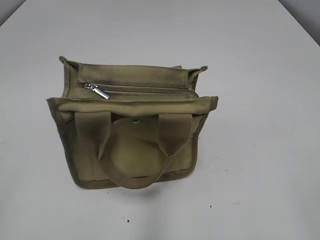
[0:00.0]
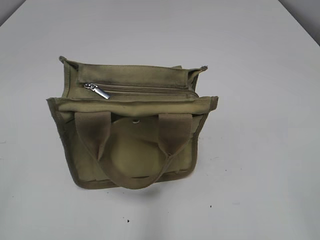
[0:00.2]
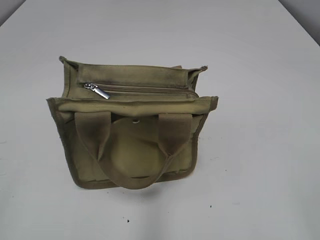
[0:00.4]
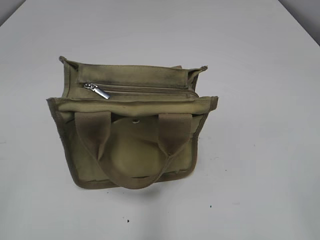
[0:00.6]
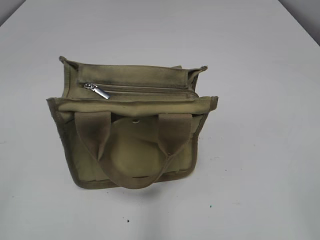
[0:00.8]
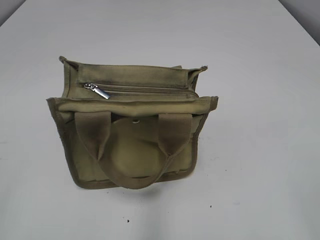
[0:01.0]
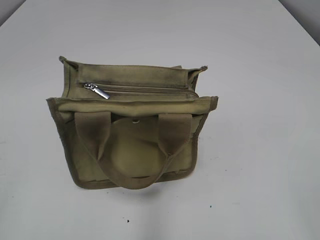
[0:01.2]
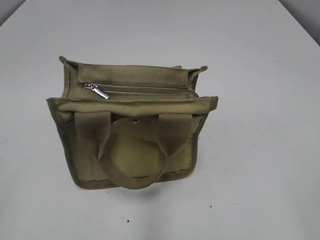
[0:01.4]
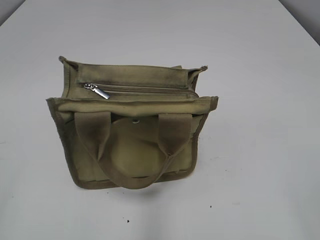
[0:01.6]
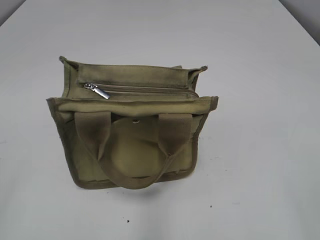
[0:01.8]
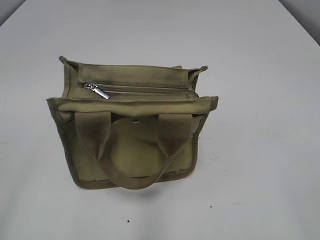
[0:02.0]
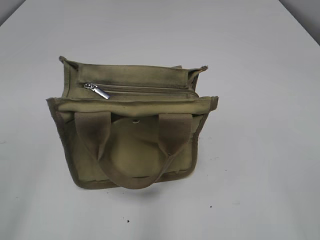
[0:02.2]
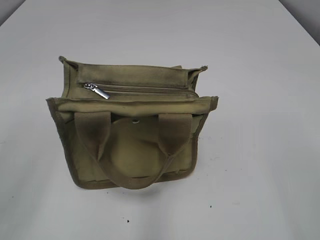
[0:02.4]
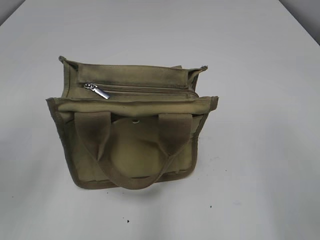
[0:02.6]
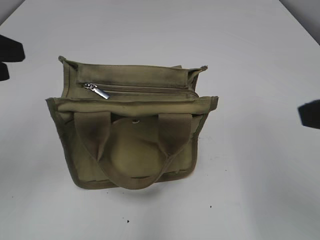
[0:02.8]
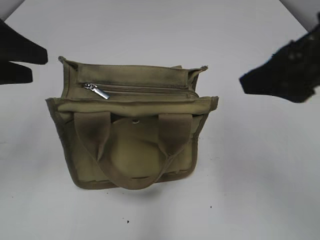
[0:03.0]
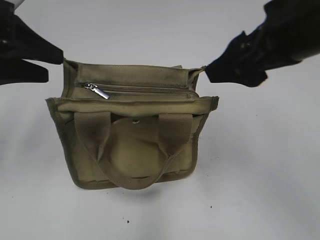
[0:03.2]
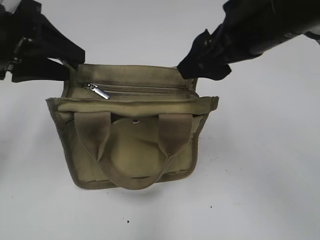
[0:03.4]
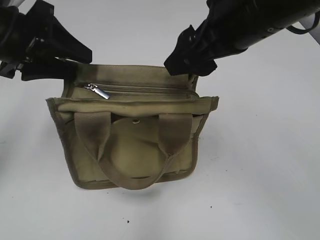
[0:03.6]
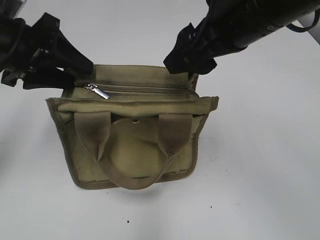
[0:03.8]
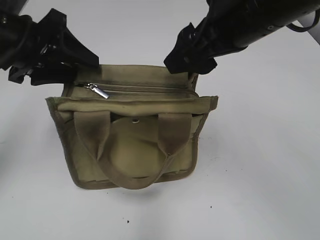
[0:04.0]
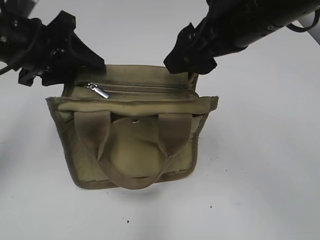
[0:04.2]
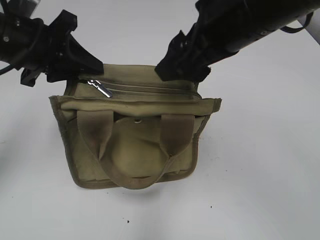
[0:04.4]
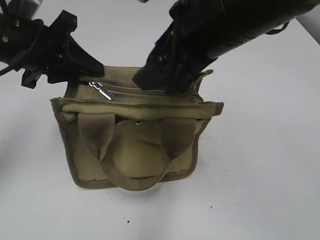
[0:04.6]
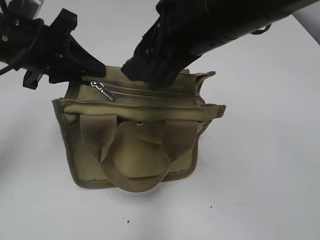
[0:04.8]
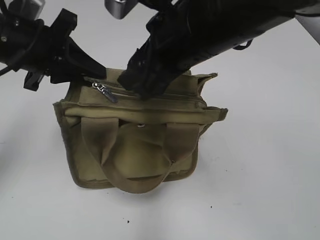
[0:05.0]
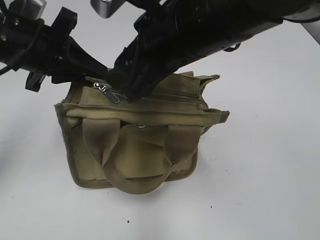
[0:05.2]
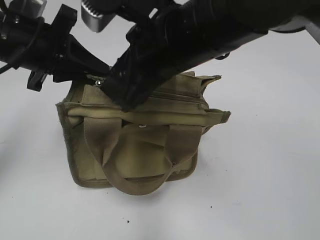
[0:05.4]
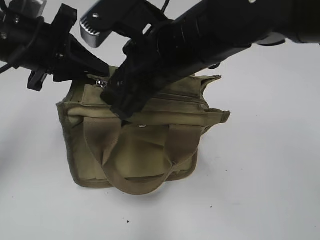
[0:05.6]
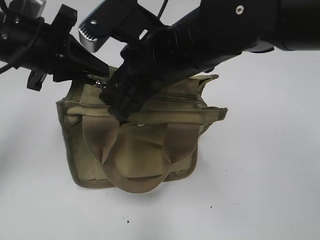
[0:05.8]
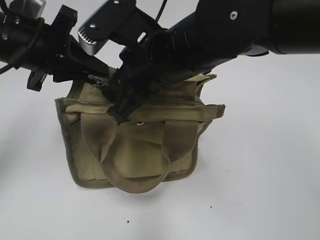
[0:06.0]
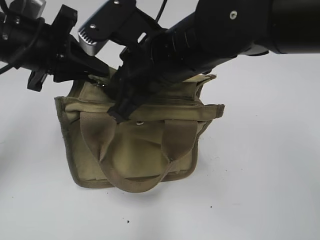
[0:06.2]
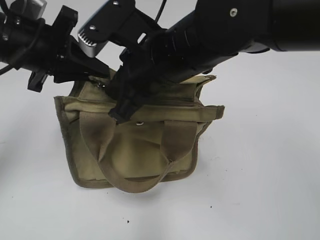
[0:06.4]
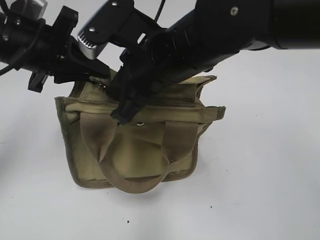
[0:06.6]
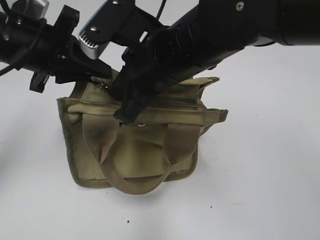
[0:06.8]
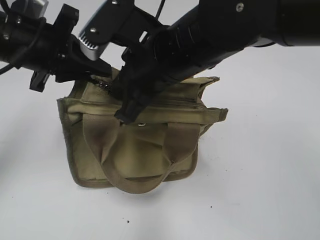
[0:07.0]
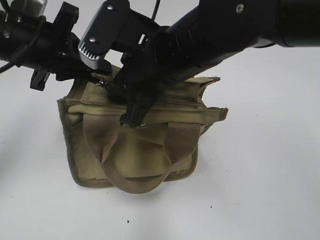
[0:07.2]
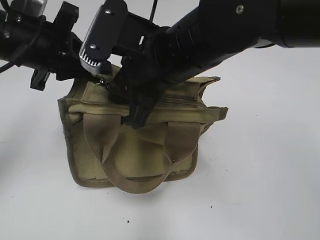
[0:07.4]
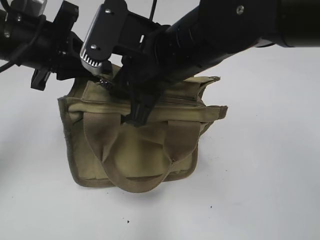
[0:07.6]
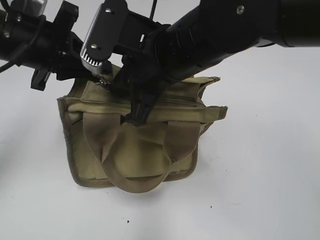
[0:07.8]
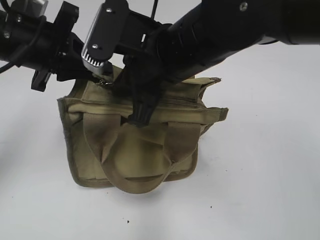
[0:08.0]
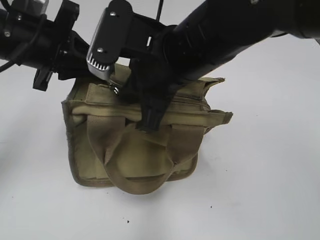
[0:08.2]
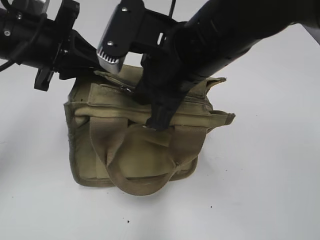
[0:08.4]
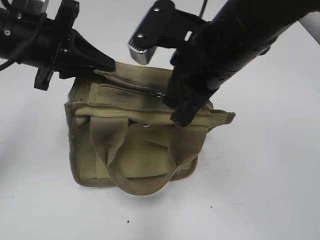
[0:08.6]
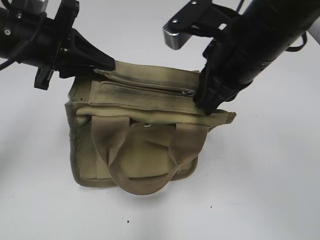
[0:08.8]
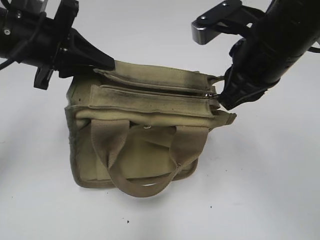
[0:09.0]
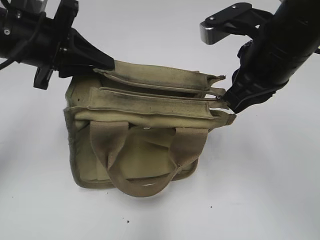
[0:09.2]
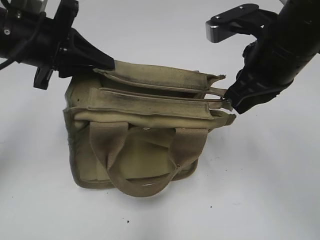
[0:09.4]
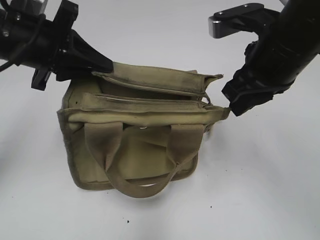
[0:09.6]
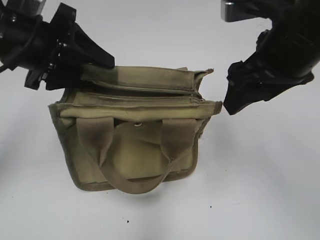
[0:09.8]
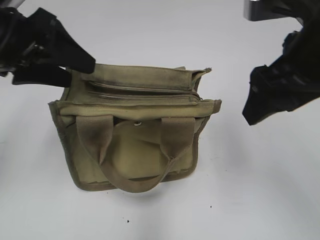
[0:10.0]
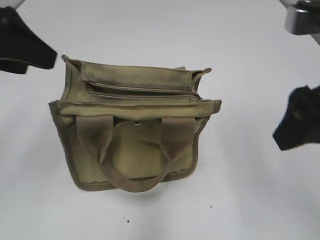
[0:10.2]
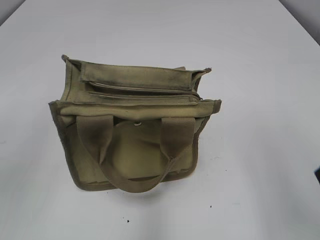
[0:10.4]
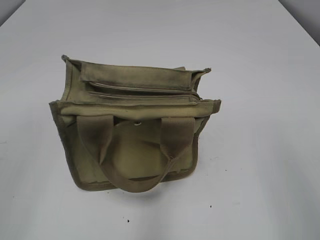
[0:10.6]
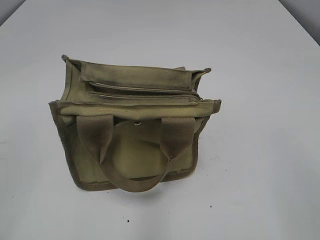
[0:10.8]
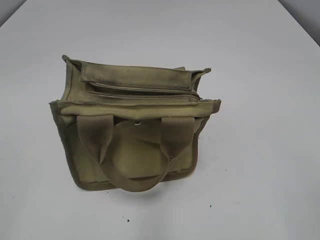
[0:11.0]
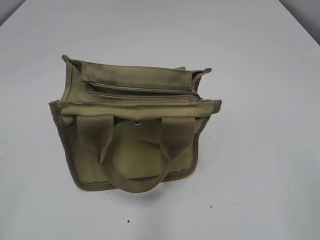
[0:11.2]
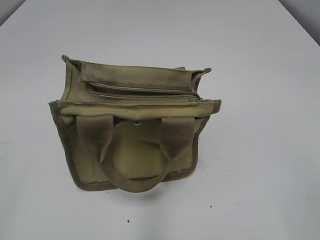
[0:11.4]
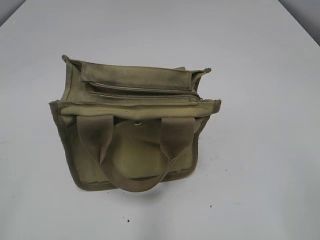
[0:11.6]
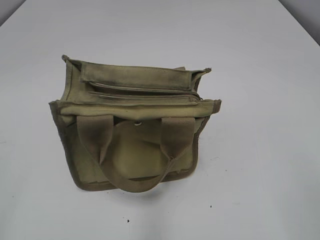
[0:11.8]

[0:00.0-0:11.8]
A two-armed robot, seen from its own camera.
Step, 0:00.0 to 0:09.4: Pull open the zipper with your right hand.
Step, 0:09.6 to 0:10.0: Hold the bag with your left hand.
0:01.4 to 0:03.0: The left gripper goes roughly 25 cm forward. The right gripper goes approximately 20 cm forward and to the left.
0:03.0 to 0:04.4: The left gripper is displaced to the right and forward by approximately 10 cm, and closes, while the right gripper is displaced to the left and forward by some 10 cm.
0:04.4 to 0:06.0: The right gripper shifts approximately 10 cm to the left and downward, and closes up.
0:06.0 to 0:07.4: The grippers move only a little.
0:07.4 to 0:08.8: The right gripper shifts approximately 10 cm to the right, and closes.
0:08.8 to 0:10.4: The left gripper is displaced backward, upward and to the left by some 15 cm, and opens, while the right gripper travels backward and to the right by about 20 cm, and opens its fingers.

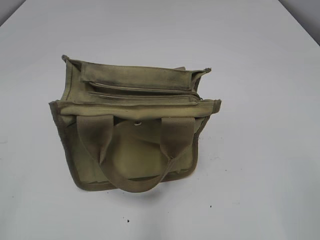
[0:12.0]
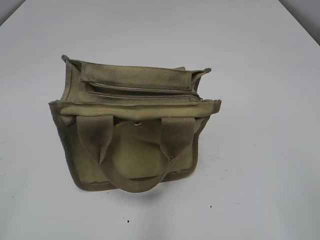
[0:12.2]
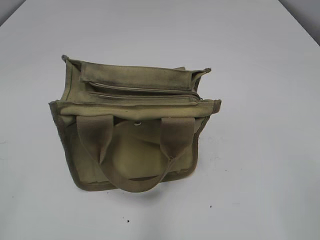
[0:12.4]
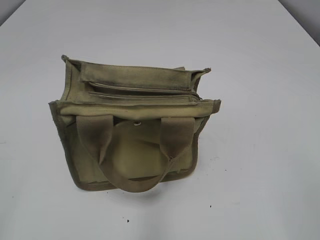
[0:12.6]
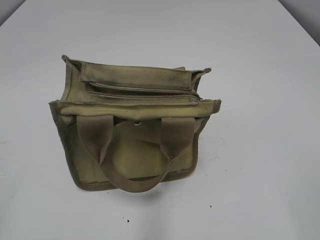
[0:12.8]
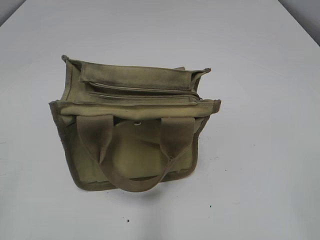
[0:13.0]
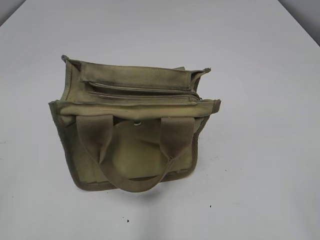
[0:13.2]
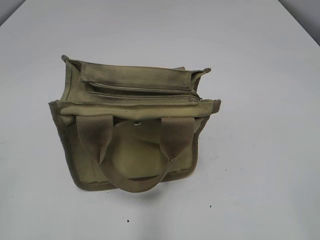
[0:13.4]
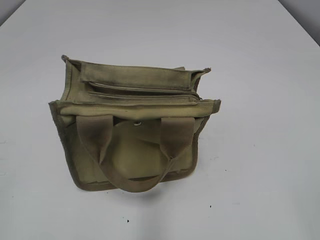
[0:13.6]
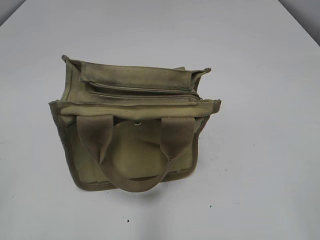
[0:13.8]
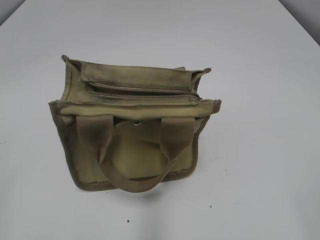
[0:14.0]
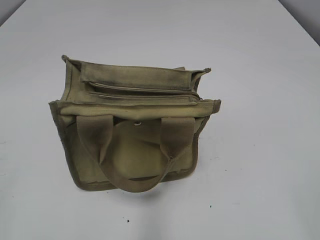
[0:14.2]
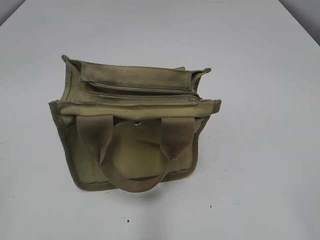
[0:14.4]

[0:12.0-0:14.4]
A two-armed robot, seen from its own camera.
0:13.2 to 0:14.4: The two grippers keep their place.

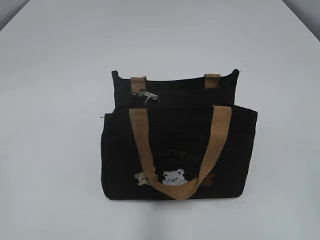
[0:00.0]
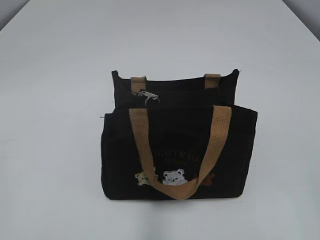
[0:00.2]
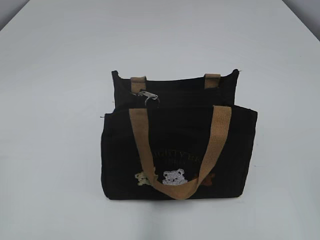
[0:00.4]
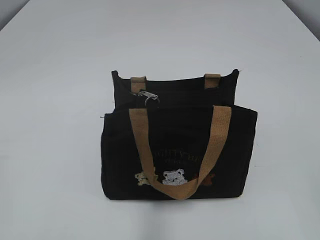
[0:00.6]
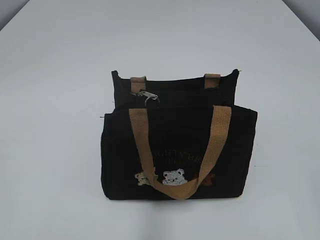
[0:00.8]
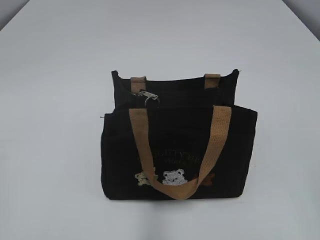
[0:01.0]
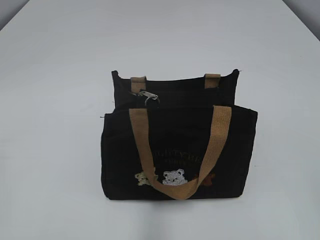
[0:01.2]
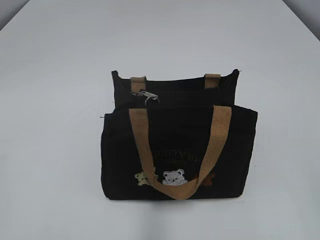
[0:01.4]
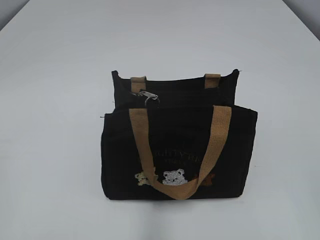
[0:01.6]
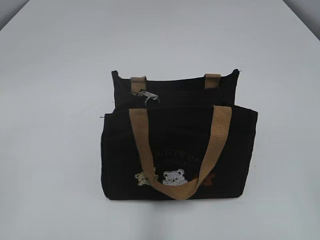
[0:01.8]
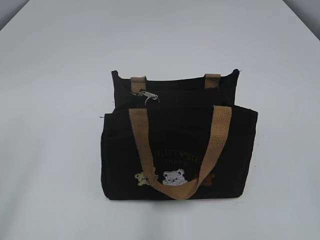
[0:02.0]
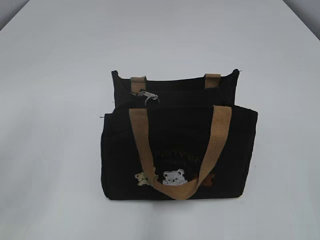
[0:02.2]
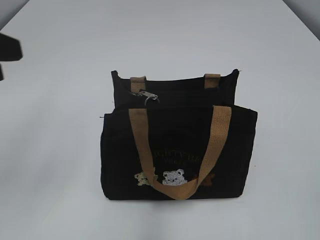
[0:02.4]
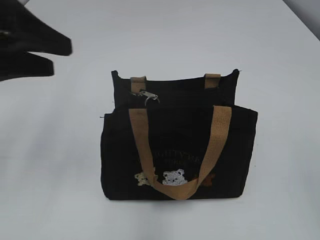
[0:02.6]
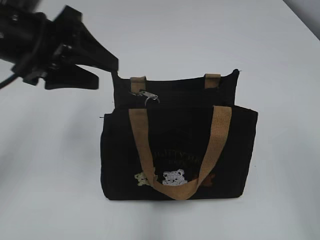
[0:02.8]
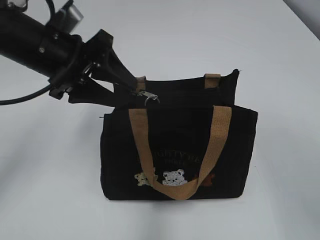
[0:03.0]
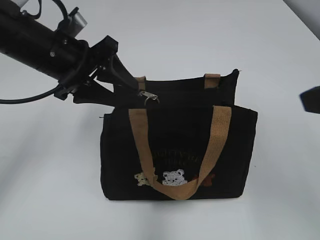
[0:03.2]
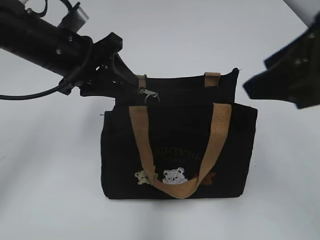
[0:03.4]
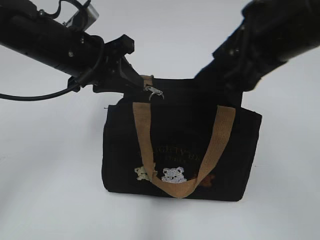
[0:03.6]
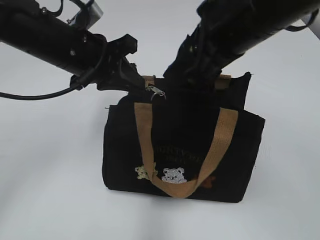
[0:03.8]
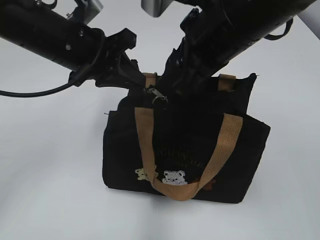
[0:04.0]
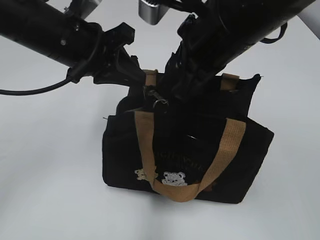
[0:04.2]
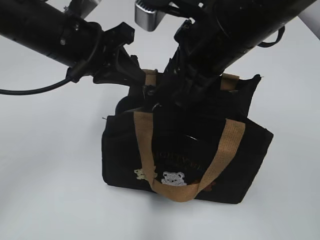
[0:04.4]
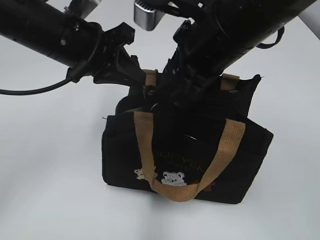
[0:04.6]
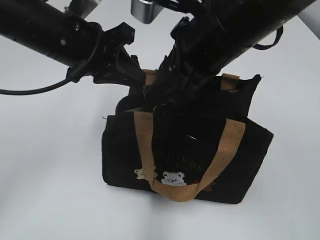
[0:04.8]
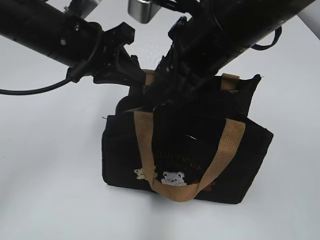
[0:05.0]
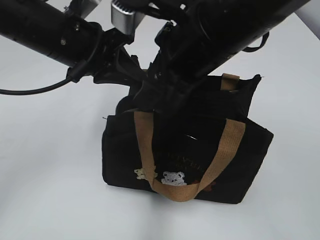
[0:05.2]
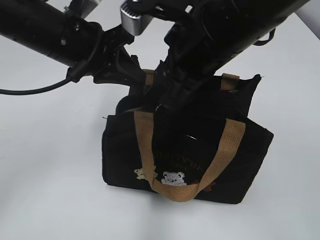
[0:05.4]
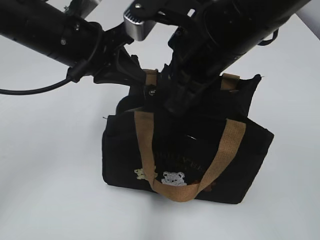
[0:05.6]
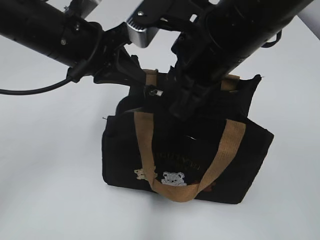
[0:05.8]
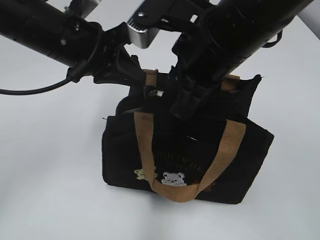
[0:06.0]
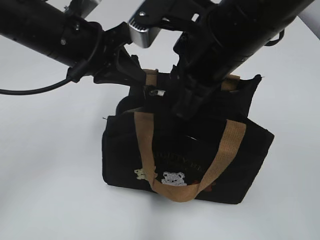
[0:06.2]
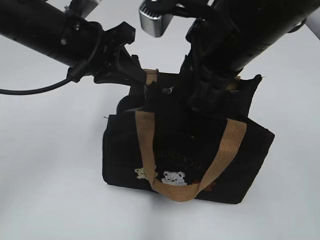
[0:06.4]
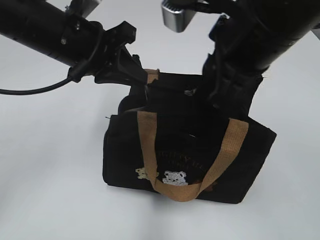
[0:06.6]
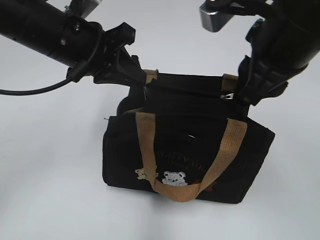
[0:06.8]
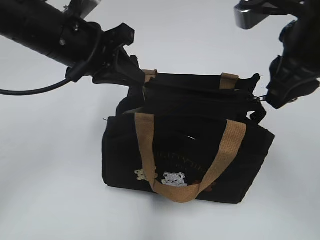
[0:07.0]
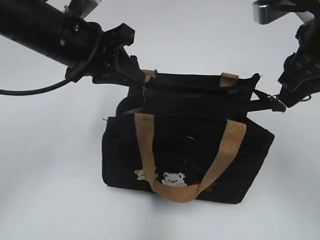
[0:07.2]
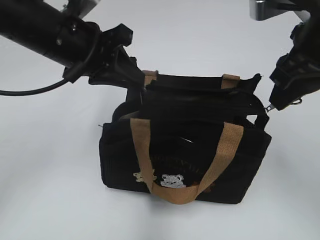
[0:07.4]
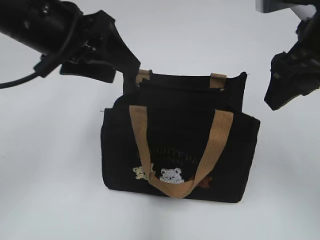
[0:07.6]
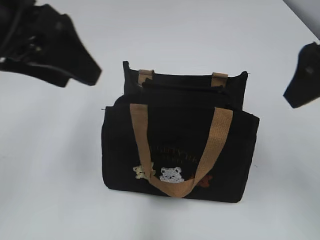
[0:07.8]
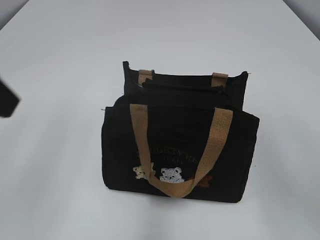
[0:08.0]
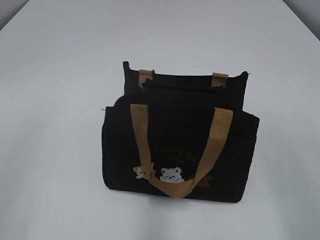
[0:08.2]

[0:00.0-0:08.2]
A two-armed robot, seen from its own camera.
Step, 0:00.0 to 0:07.4: Pull open the zipper with your right hand.
0:01.6 to 0:03.2: The right gripper goes some 15 cm forward, and opens its fingers, while the left gripper moves forward and to the right, approximately 35 cm, and opens up.
0:03.2 to 0:05.0: The left gripper closes up. Meanwhile the right gripper moves to the left and forward, approximately 20 cm.
0:05.0 to 0:06.6: The right gripper closes its fingers.
0:06.6 to 0:08.2: The right gripper moves backward and to the right, about 20 cm, and opens; the left gripper heads backward and to the left, covering some 25 cm, and opens.
